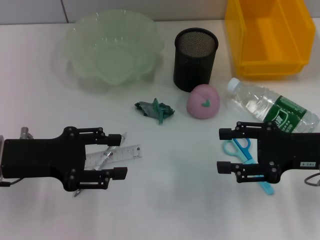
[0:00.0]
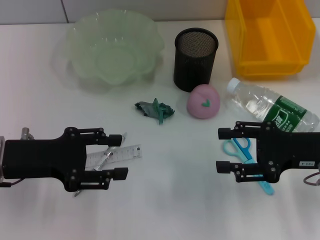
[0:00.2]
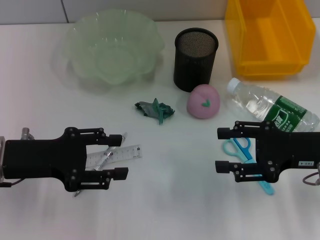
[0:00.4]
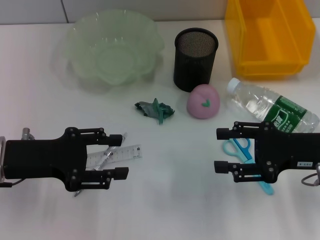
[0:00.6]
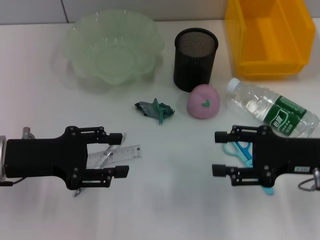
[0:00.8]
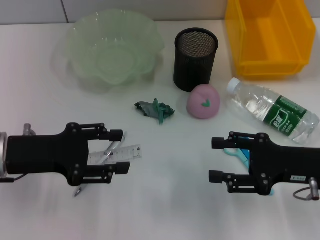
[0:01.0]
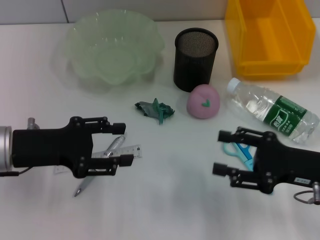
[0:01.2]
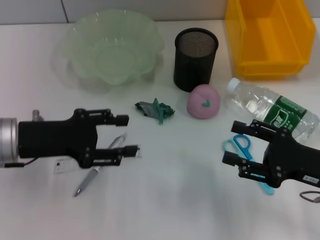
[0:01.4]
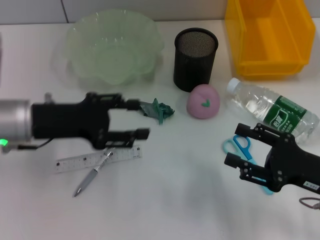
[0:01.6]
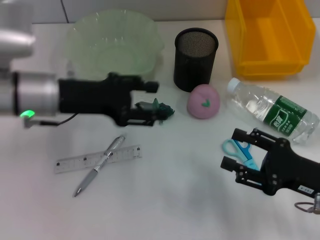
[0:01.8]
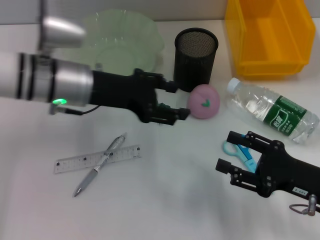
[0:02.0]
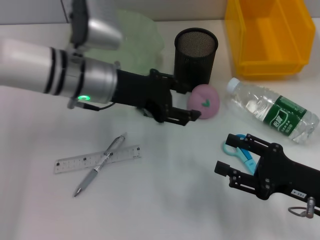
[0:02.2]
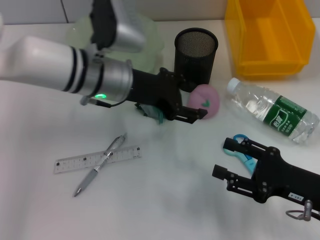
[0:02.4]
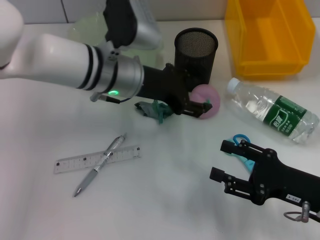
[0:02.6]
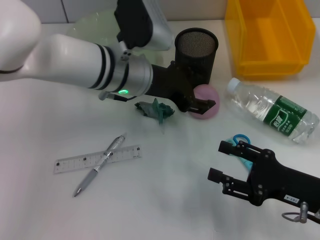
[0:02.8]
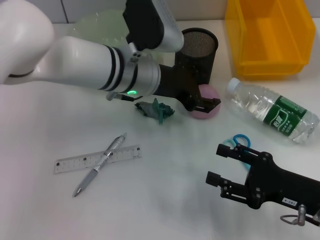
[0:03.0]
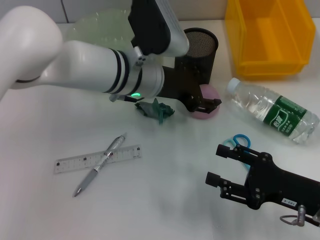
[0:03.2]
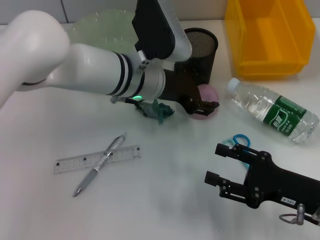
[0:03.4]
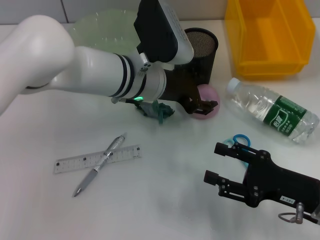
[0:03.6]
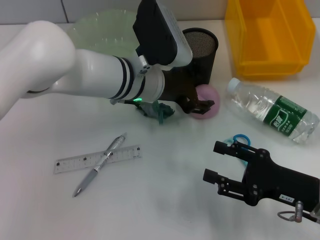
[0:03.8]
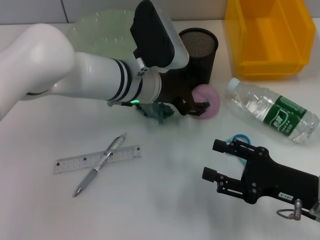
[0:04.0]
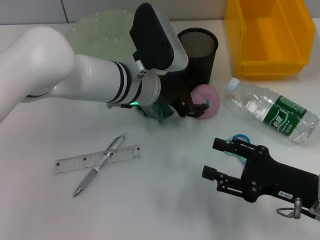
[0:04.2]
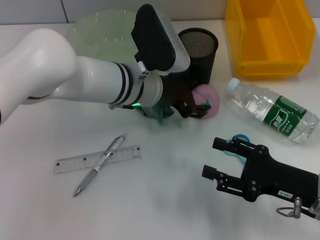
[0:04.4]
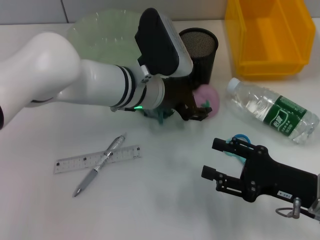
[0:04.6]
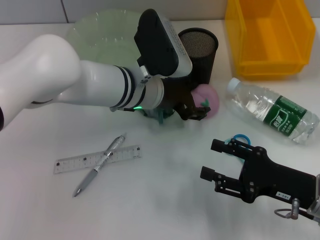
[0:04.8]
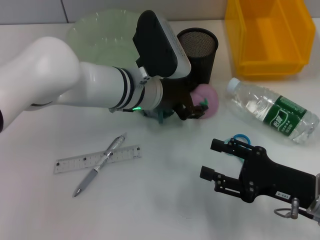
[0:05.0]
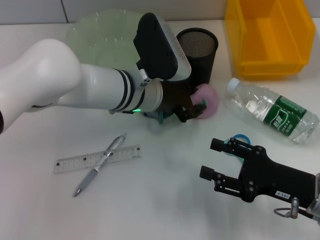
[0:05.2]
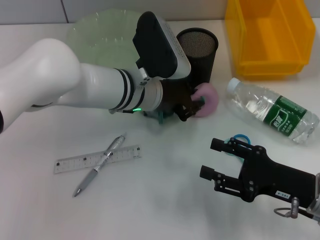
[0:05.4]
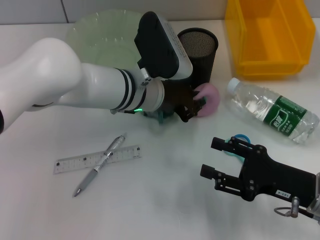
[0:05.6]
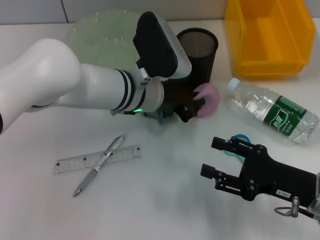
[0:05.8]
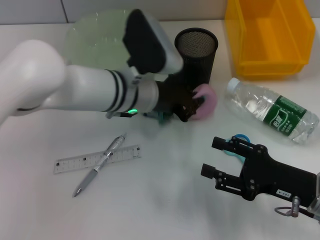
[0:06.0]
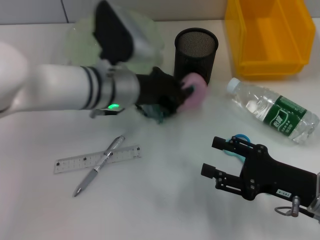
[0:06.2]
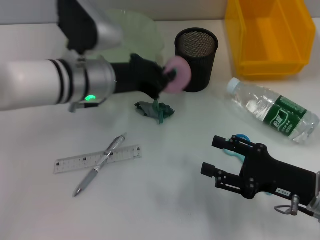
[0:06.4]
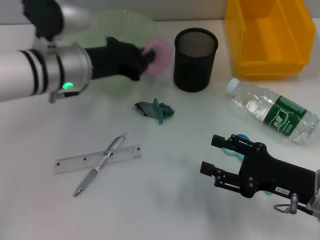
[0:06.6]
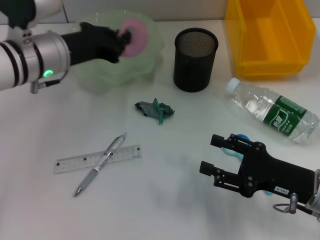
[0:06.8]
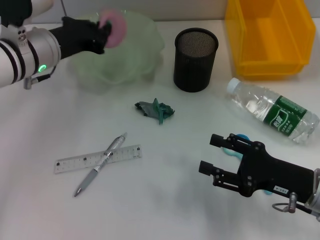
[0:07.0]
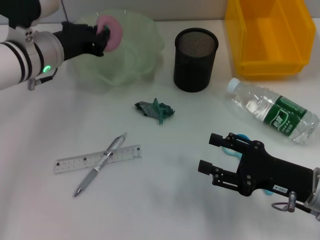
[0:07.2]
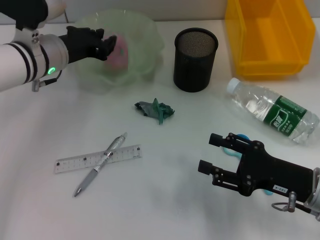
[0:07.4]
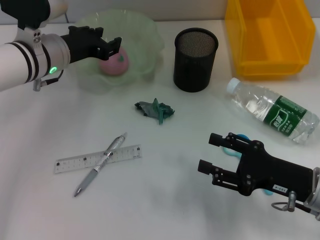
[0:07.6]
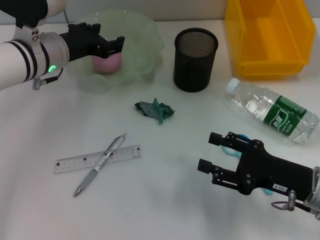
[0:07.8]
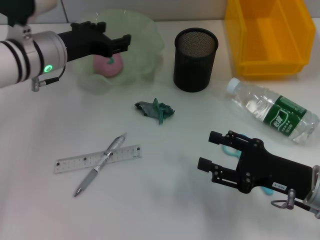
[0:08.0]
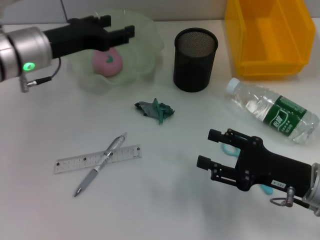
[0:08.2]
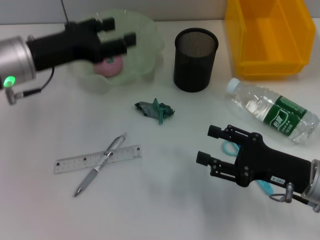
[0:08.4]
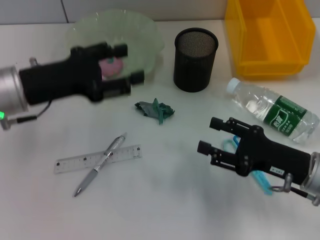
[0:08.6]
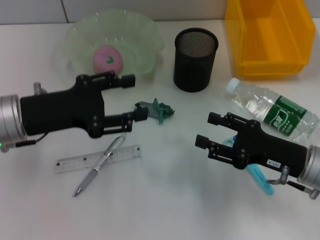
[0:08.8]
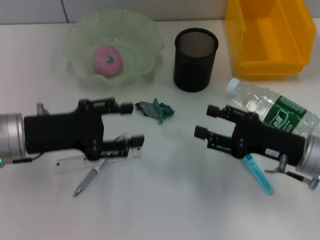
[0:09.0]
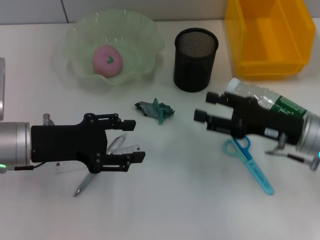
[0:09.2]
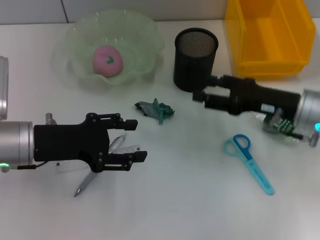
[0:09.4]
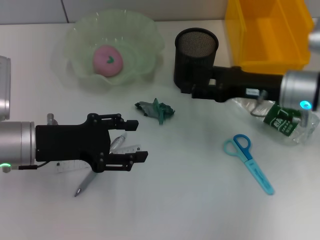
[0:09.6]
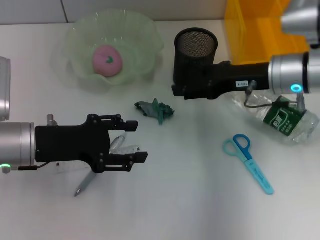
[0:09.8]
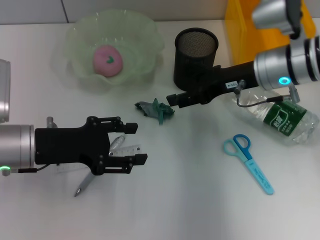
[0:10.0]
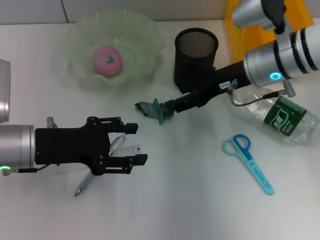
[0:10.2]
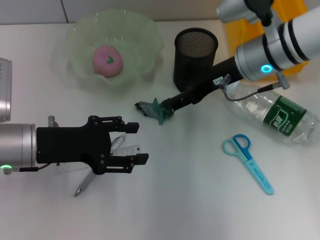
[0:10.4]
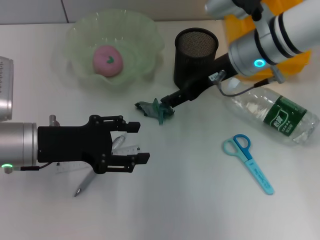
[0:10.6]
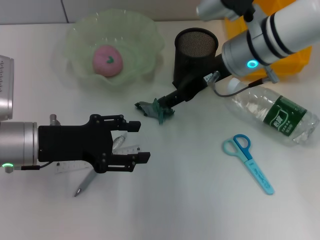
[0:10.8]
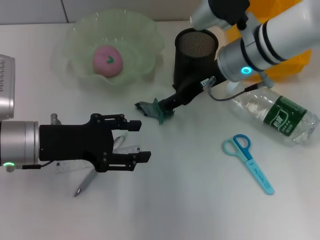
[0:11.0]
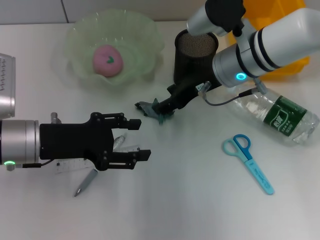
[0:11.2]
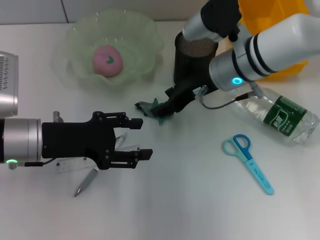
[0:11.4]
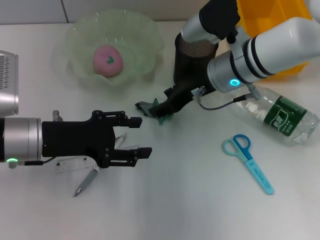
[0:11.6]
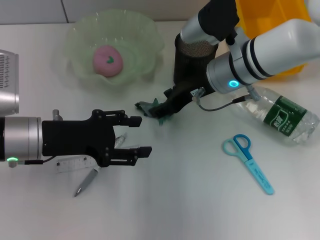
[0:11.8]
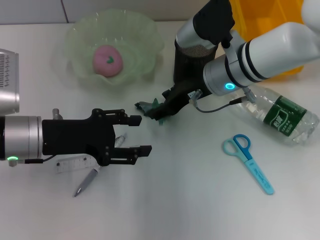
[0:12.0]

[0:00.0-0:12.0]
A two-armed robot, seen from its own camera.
Step, 0:00.0 to 0:05.8: Grab the peach with the left hand.
Step, 0:06.0 to 0:07.8: Place the peach into the fruit bowl with the left hand.
0:00.0 to 0:01.6: The right gripper travels backward by about 5 cm.
0:01.6 to 0:03.0: The left gripper travels to the right and forward by approximately 20 cm.
0:03.0 to 0:04.4: There are only small adjustments of the grippers.
0:04.4 to 0:06.0: The left gripper closes its fingers.
0:06.0 to 0:07.6: The left gripper is displaced to the left by approximately 10 cm, and opens its fingers.
0:07.6 to 0:09.0: The left gripper heads backward, covering roughly 10 cm, and opens its fingers.
0:09.0 to 0:10.4: The right gripper travels forward, upward and to the left by about 20 cm.
0:10.4 to 0:12.0: The right gripper moves approximately 5 cm.

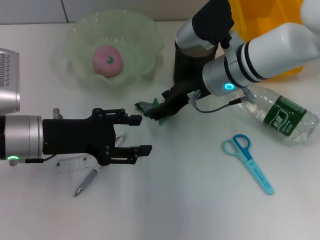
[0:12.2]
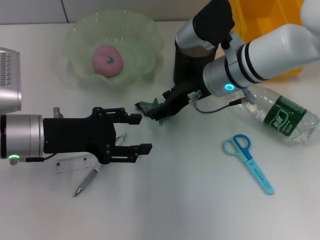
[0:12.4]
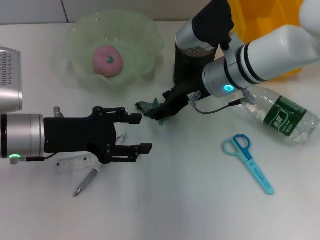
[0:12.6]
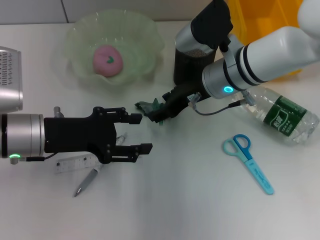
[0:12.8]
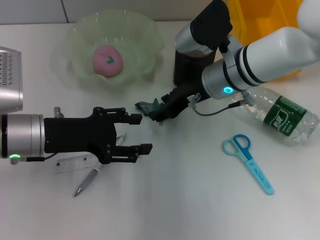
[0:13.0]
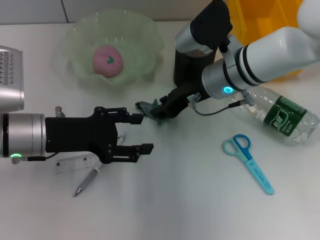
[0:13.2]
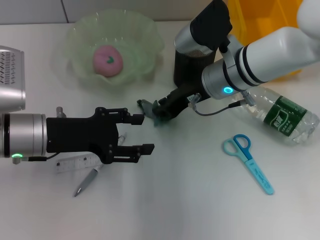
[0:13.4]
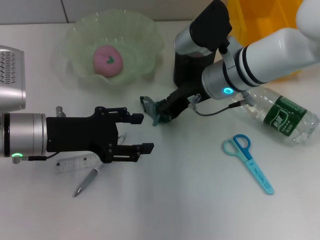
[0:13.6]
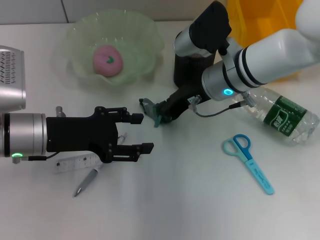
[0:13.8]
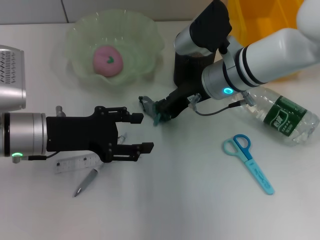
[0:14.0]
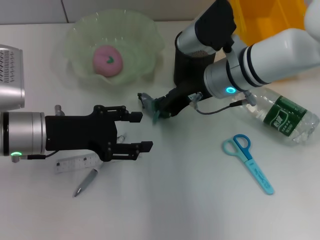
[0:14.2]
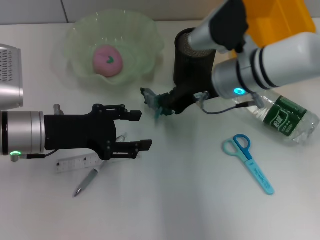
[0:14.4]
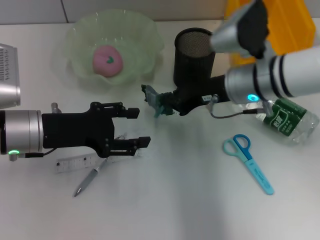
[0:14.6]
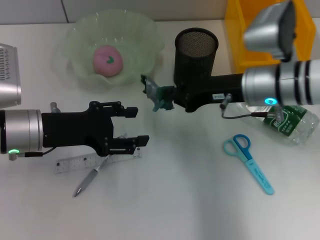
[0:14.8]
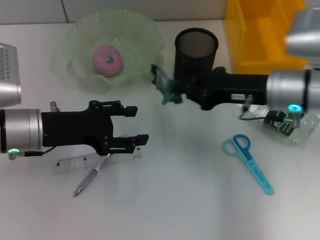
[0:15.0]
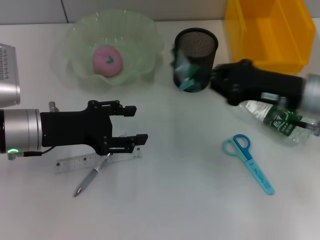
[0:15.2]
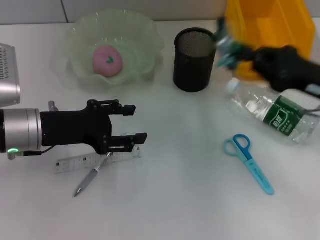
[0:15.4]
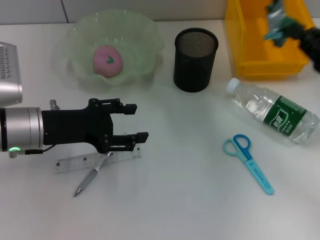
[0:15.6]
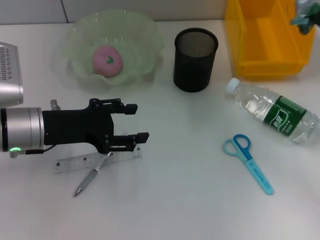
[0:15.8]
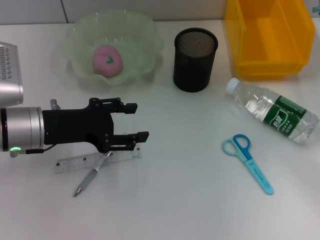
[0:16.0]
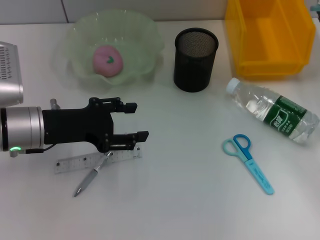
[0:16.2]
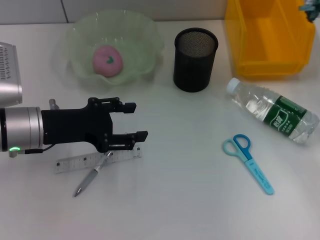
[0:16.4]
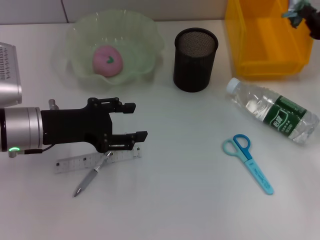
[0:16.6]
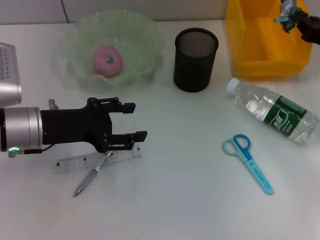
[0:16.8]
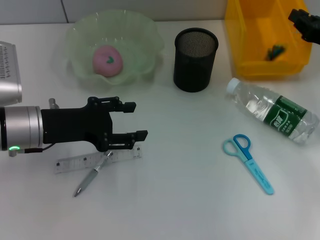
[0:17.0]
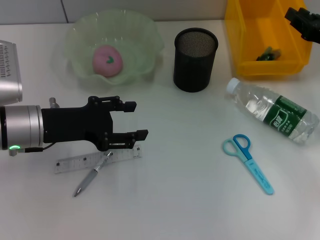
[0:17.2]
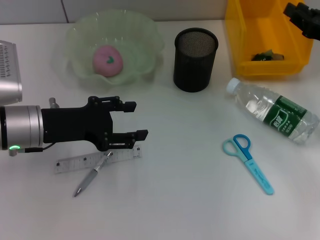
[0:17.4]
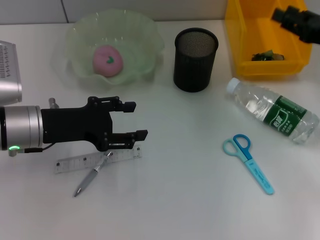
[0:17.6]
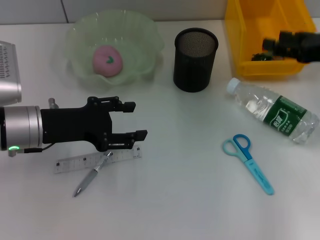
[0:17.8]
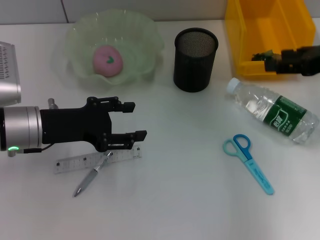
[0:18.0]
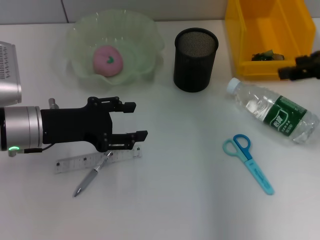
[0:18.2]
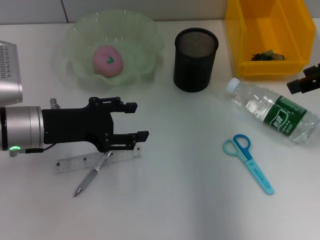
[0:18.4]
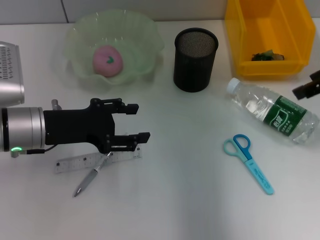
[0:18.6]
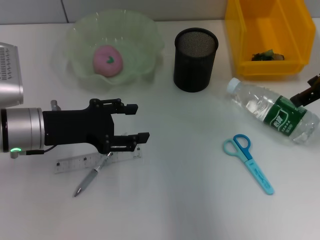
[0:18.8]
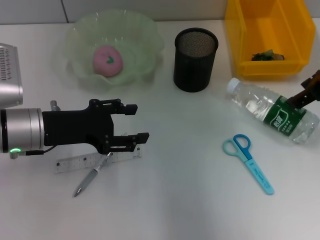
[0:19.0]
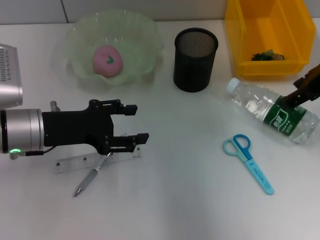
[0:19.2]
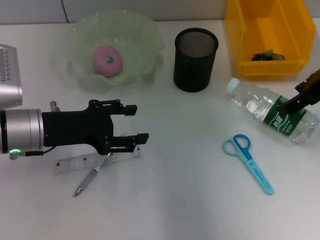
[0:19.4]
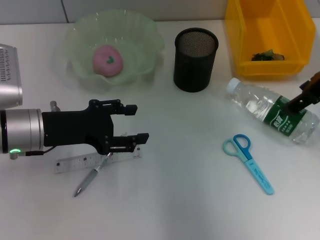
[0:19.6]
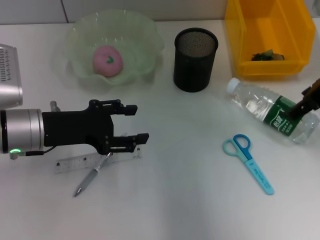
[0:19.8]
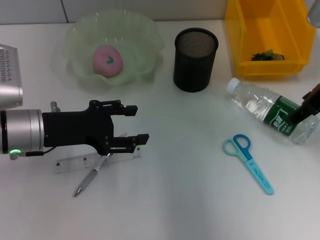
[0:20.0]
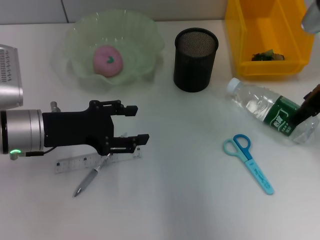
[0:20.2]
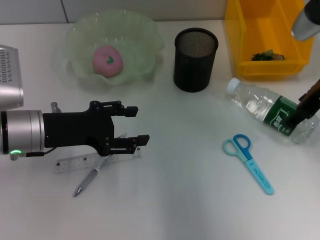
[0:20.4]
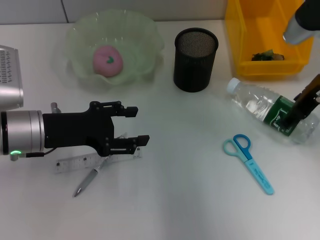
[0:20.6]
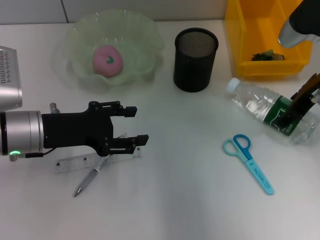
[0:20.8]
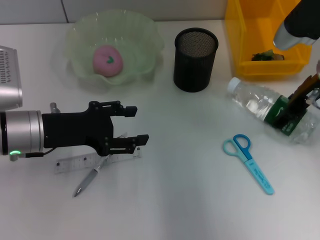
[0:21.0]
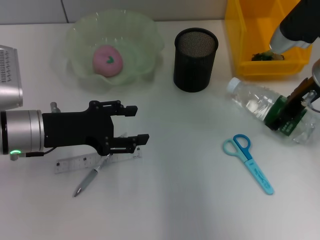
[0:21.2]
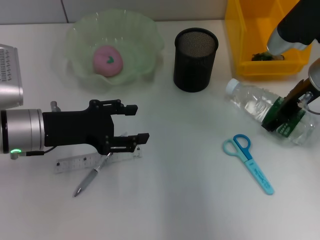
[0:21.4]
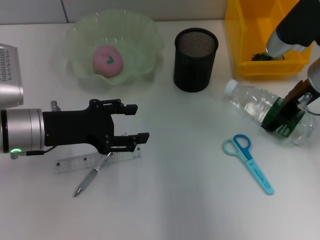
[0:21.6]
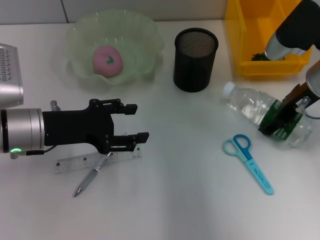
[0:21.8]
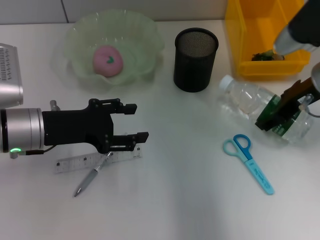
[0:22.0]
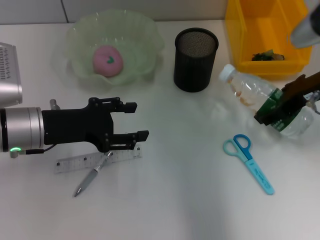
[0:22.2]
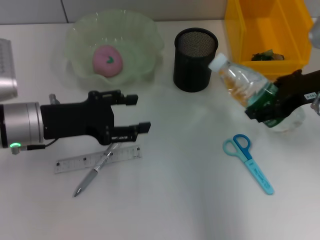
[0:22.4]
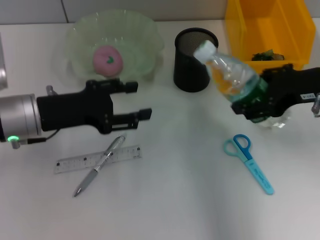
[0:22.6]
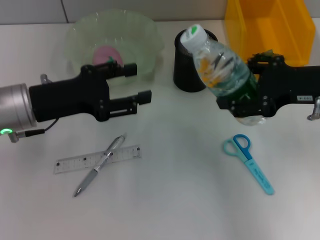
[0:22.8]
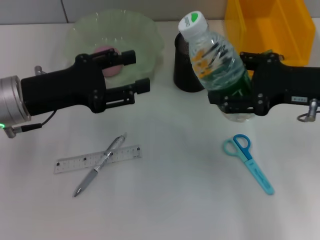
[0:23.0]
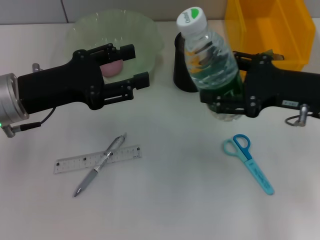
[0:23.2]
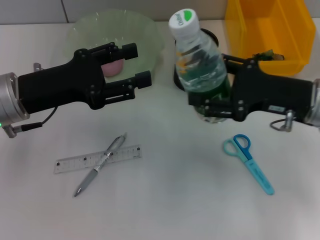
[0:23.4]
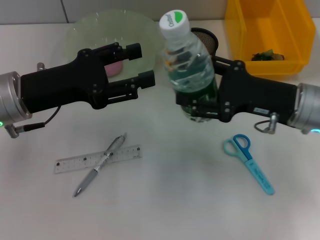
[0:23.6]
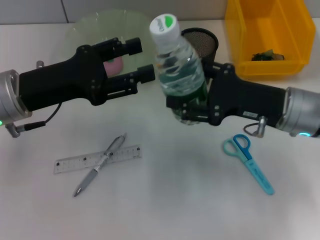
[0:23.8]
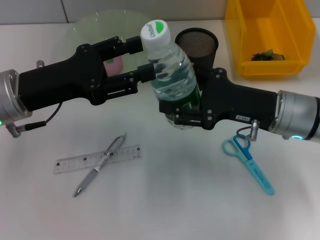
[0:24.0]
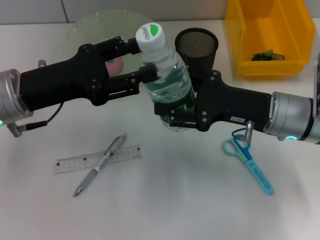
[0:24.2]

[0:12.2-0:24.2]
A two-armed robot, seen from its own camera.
Step, 0:14.2 to 0:17.2: Place the plastic into the trash can with the right hand.
Step, 0:17.6 to 0:22.2: Grab the water bottle with the right hand.
0:12.2 to 0:13.8: The right gripper closes its fingers.
0:13.8 to 0:15.2: The right gripper travels to the right and backward by some 15 cm.
0:15.2 to 0:16.6: The right gripper shifts about 10 cm to the right.
0:16.6 to 0:18.2: The right gripper is displaced upward by about 10 cm, and opens up.
0:18.2 to 0:19.8: The right gripper travels to the left by approximately 5 cm.
0:19.8 to 0:21.2: The right gripper shifts about 5 cm downward.
0:21.2 to 0:22.6: The right gripper is displaced backward by some 5 cm.
0:22.6 to 0:24.2: The right gripper travels downward and to the left by about 10 cm.
